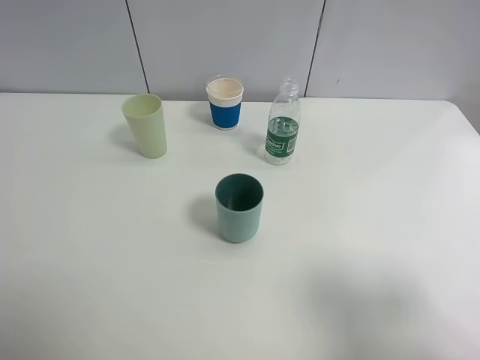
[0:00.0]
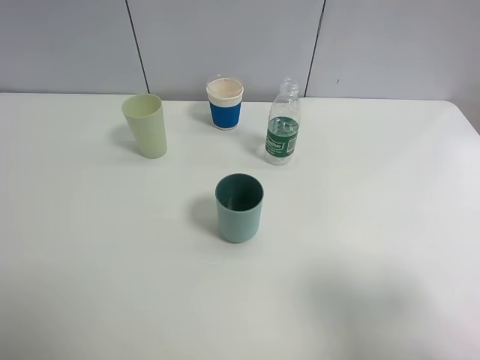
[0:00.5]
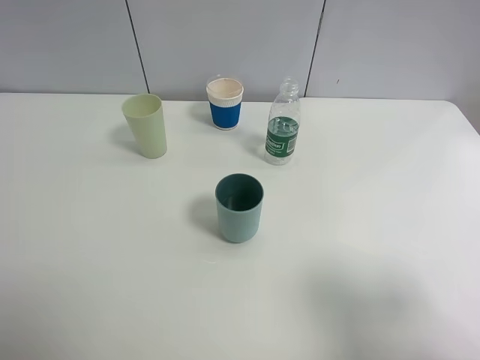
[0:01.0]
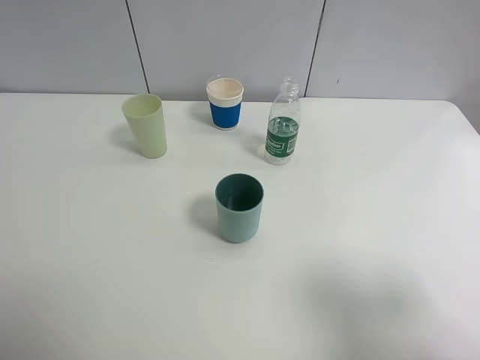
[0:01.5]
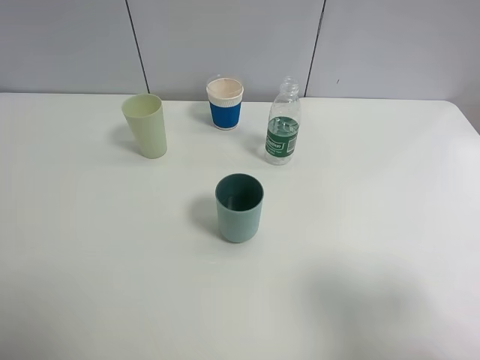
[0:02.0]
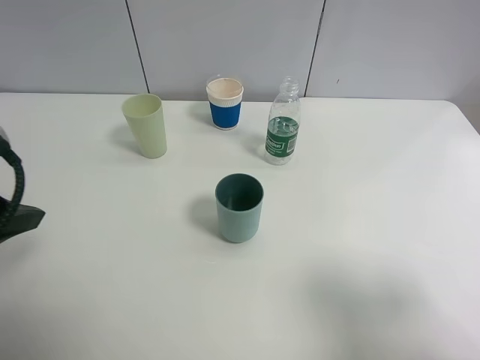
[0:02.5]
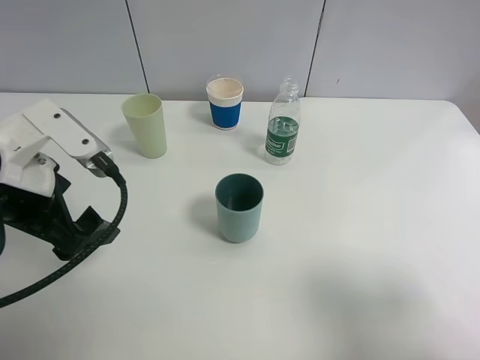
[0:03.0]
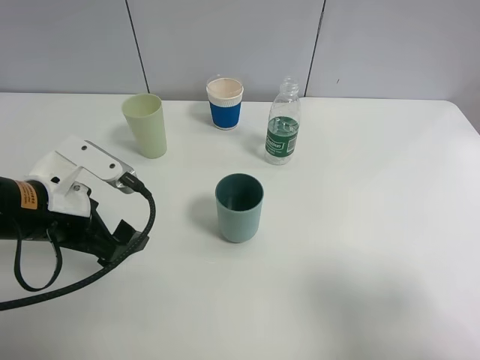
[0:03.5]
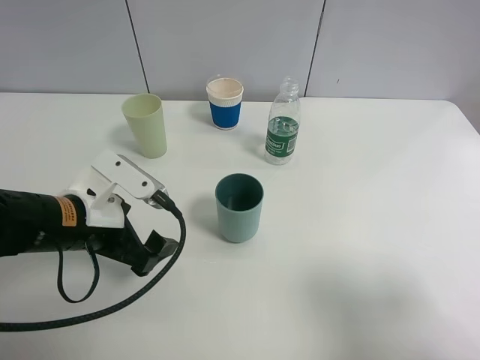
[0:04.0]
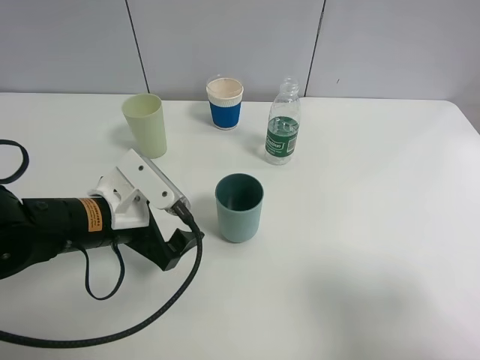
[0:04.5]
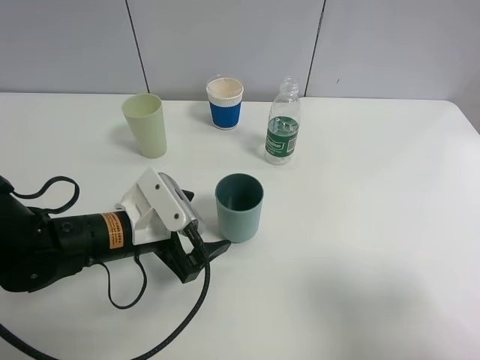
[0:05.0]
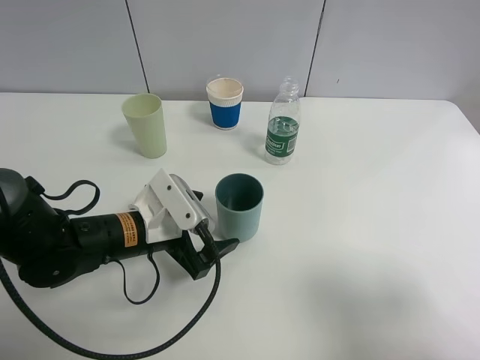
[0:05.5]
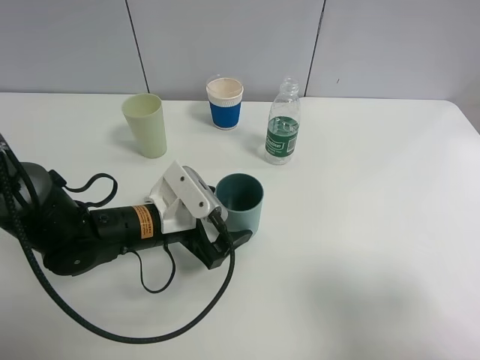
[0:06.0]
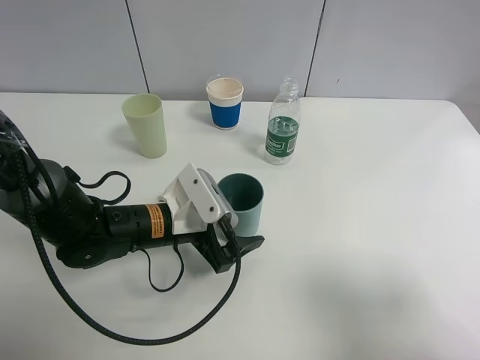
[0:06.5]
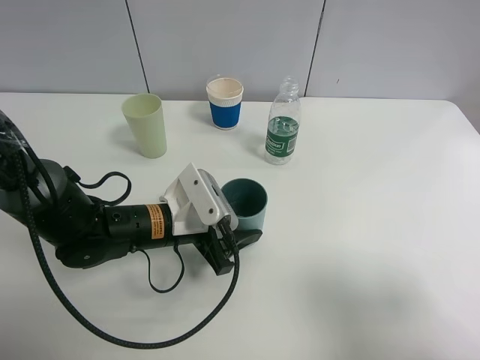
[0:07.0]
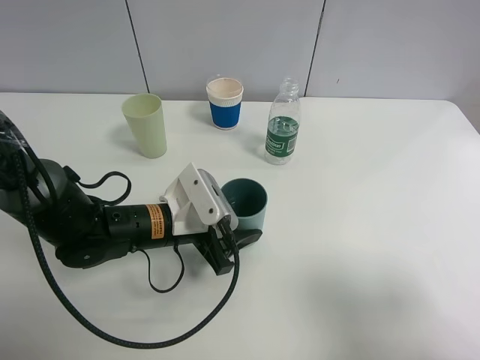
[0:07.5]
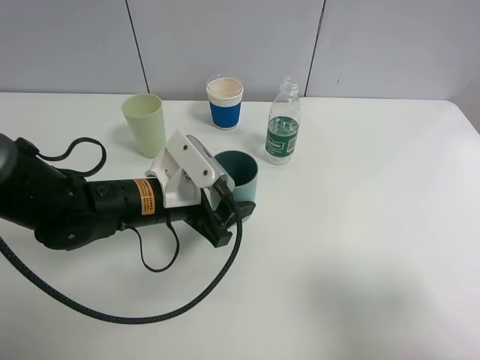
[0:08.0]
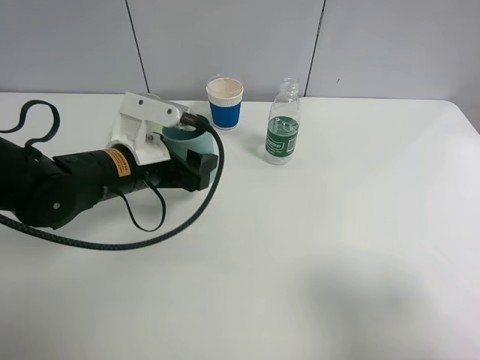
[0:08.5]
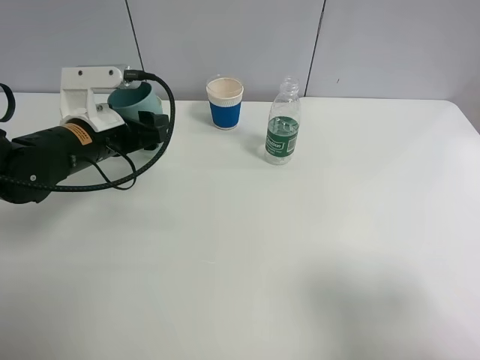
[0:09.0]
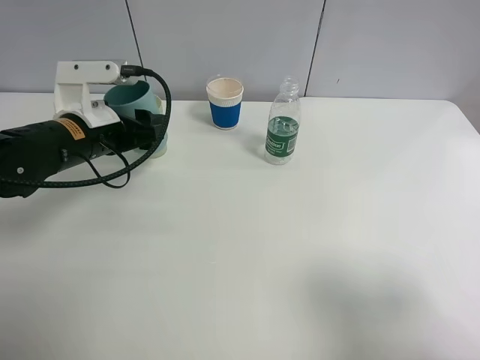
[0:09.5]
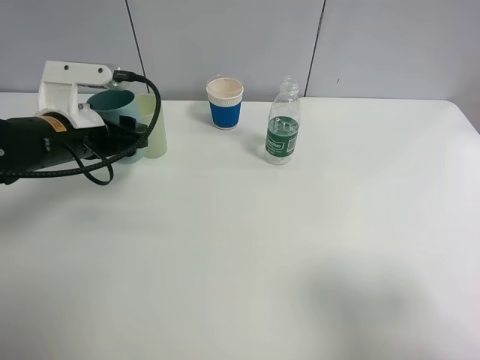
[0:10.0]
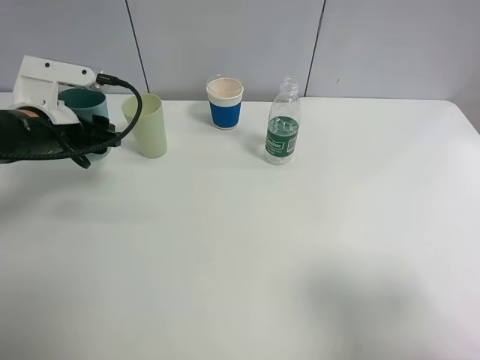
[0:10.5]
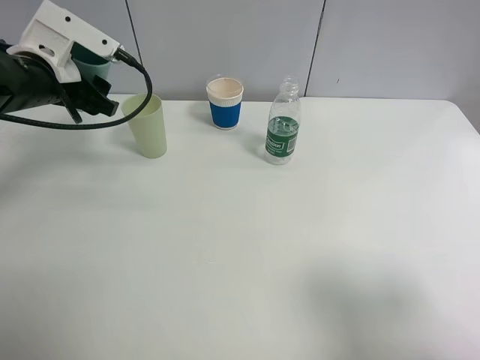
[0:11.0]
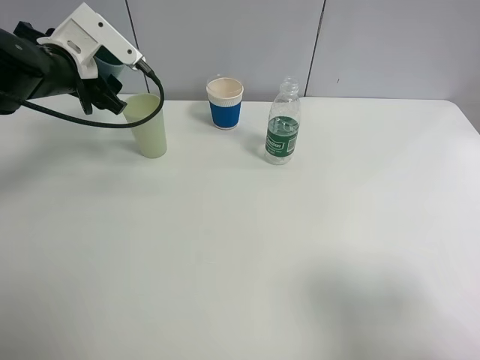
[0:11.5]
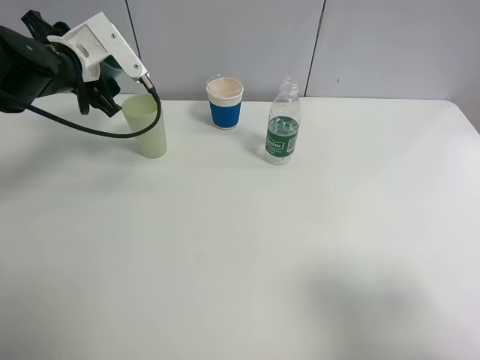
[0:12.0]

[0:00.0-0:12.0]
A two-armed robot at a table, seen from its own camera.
Task of the whole recording: use a clamp to hold the bottle of the drink, pour the beverage into a random cup, then clamp the cup containing the drink and pour the drink into another random cup.
Step, 0:00.0 to 0:08.0: Pick up the blue plastic cup bottle with left gripper.
0:02.0 to 0:04.0: The left gripper is displaced downward, to the right and forward by approximately 25 cm.
0:04.0 to 0:06.0: The left gripper moves to the right and downward, about 10 cm.
0:06.0 to 0:08.0: The left gripper closes.
0:08.0 to 0:10.0: The left gripper goes some 10 cm to the left.
0:10.0 to 0:12.0: The left gripper is displaced forward by roughly 10 cm.

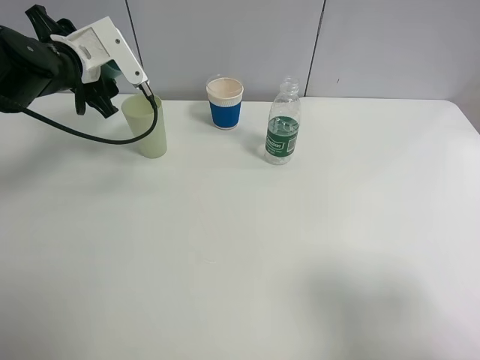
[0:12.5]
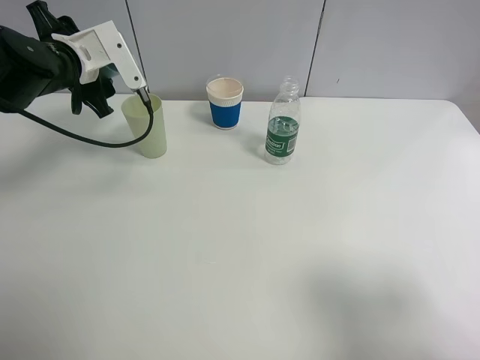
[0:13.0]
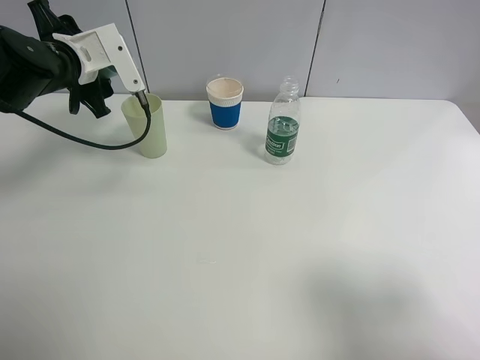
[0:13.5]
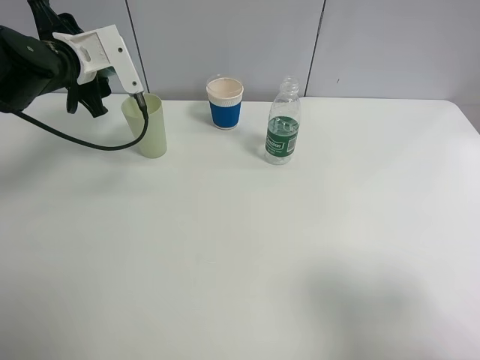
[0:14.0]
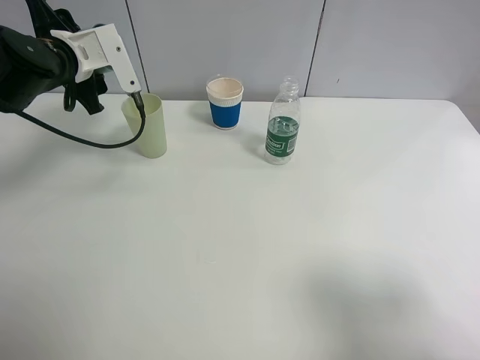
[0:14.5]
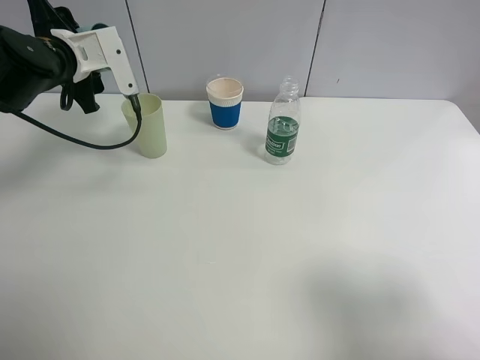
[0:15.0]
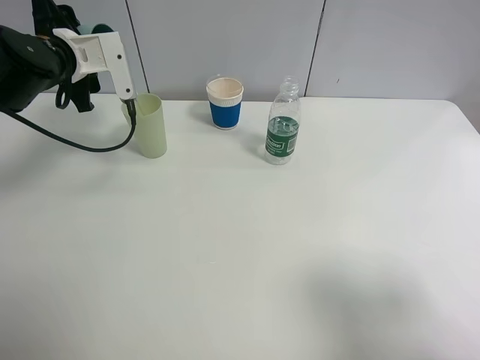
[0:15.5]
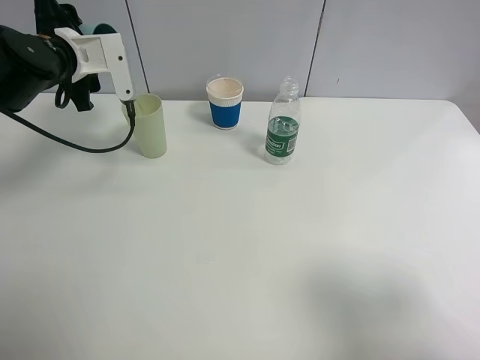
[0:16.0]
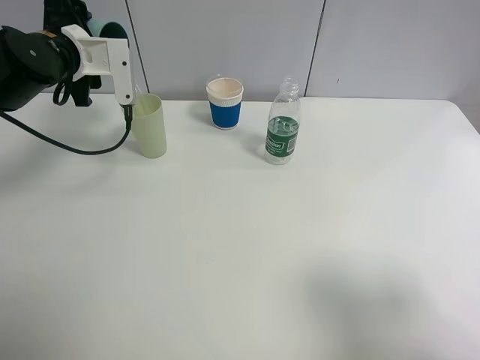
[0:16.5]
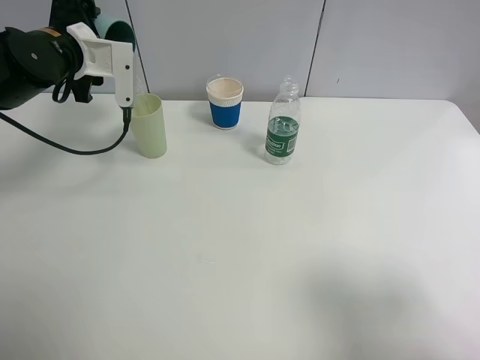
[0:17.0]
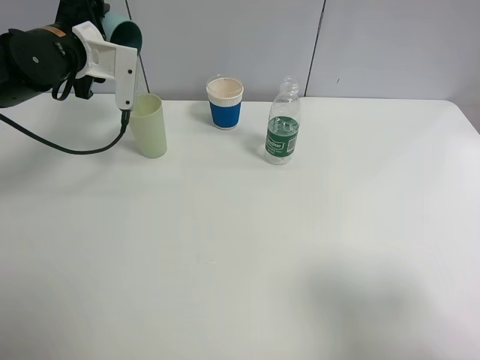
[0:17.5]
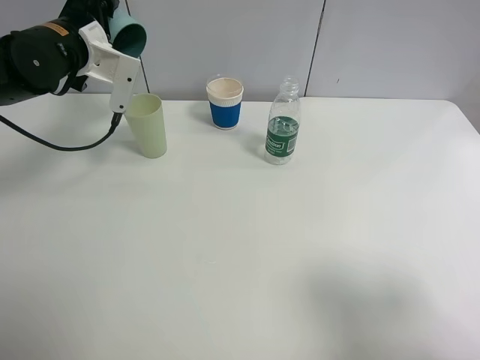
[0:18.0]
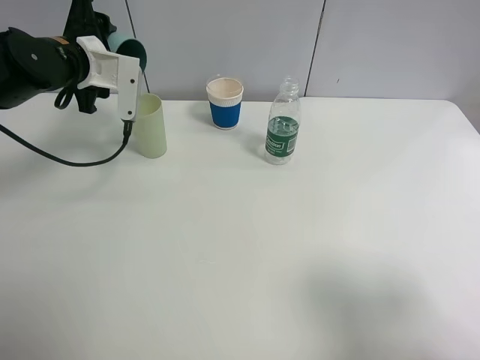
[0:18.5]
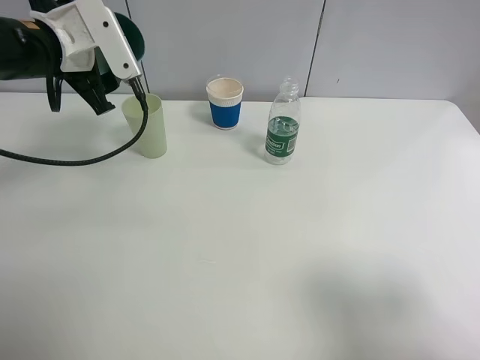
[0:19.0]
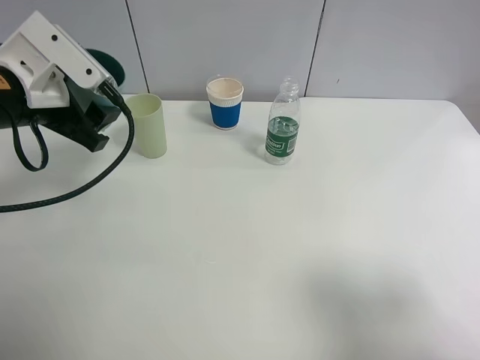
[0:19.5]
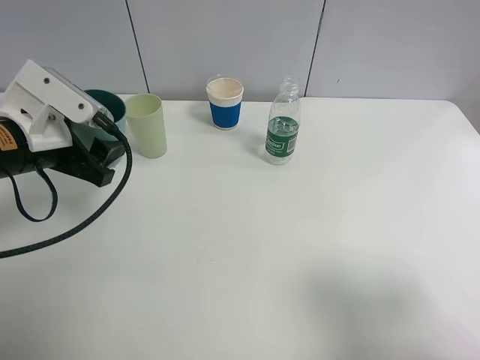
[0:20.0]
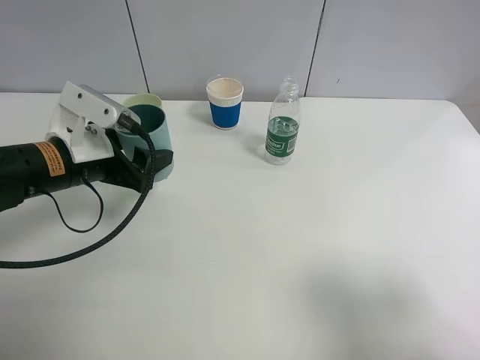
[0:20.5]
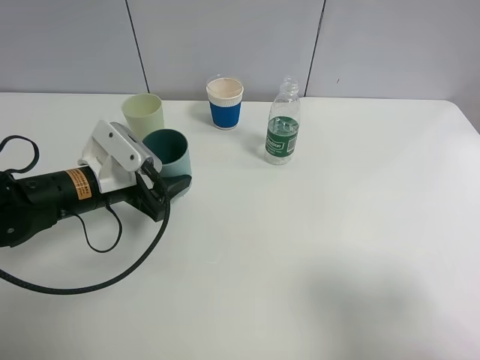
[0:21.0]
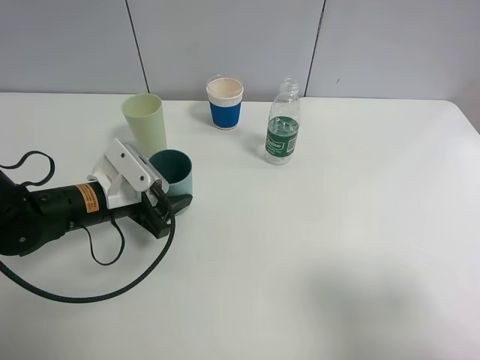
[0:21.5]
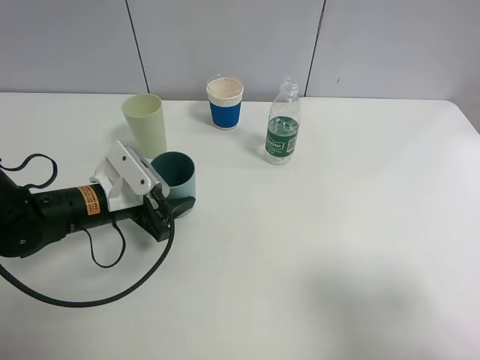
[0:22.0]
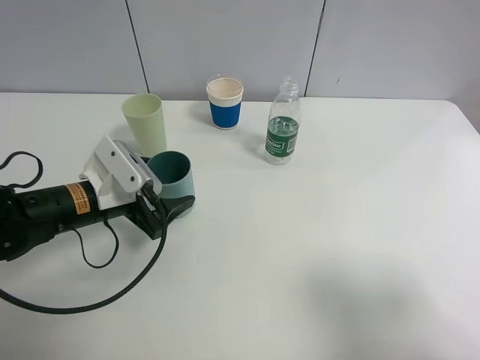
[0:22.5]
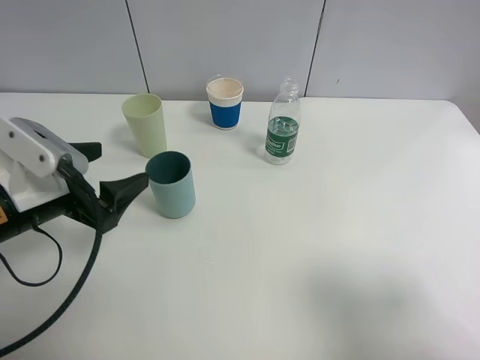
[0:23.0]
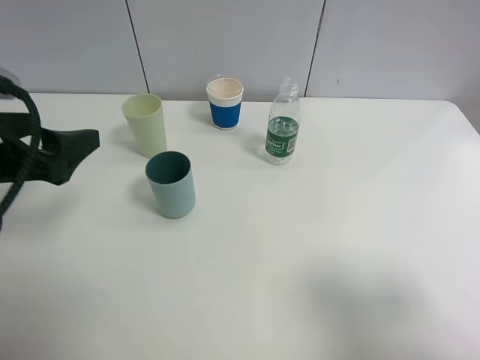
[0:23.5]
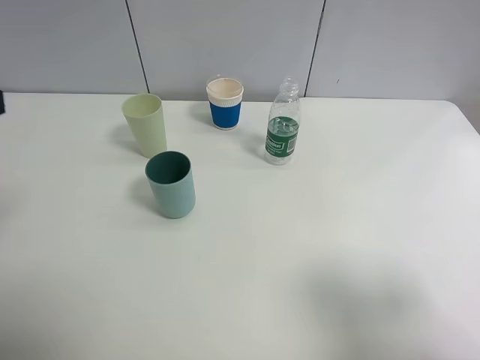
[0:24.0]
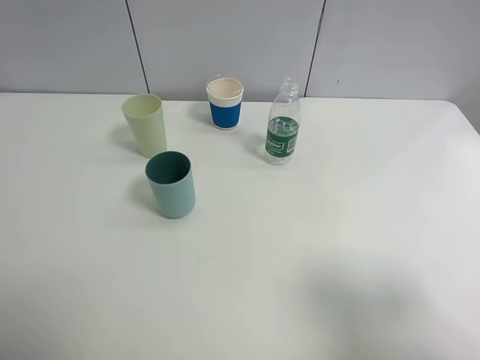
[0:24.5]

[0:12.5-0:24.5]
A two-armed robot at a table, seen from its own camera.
Task of the whole recording: use a clamp to hold the bottle of the drink, pour the beverage into a random cup, then clamp the cup containing the drink and pour the drink into another random cup.
Step, 0:12.5 to 0:18.5: Pour water into the green plastic cup with left gripper.
Step, 0:19.0 to 0:22.5: Place the blue plastic cup on the table with left gripper.
0:12.5 to 0:14.5: The grippers make only small movements.
0:18.5 to 0:20.5: The left gripper moves backward and downward, some 15 cm.
0:20.5 to 0:22.5: The left gripper moves downward, approximately 5 cm, and opens its fingers.
0:22.5 to 0:24.5: The left gripper is displaced upward, backward and to the left by roughly 30 cm, and opens.

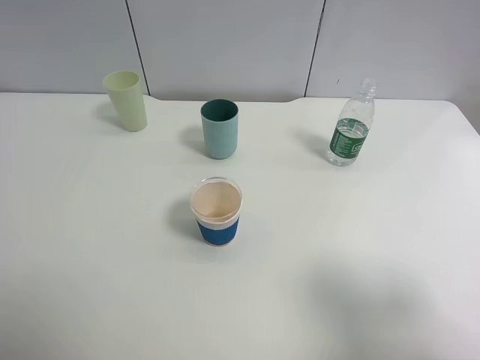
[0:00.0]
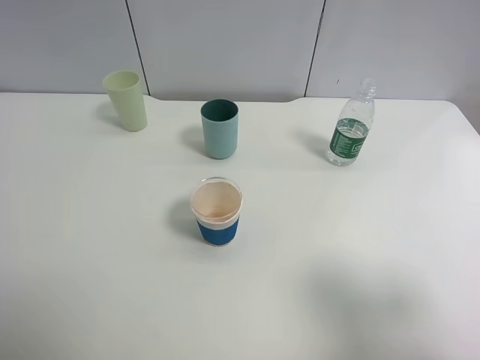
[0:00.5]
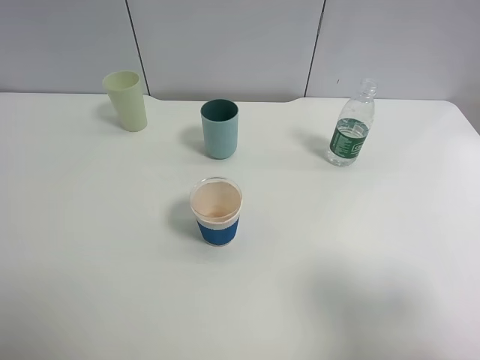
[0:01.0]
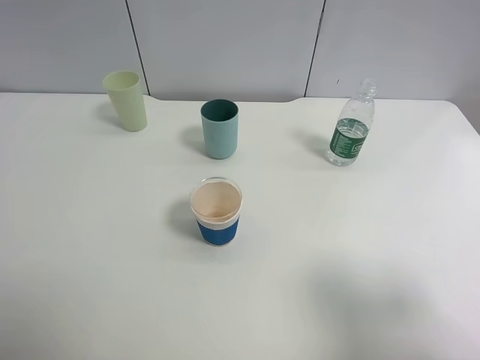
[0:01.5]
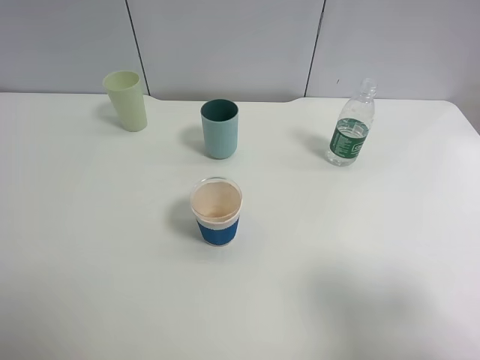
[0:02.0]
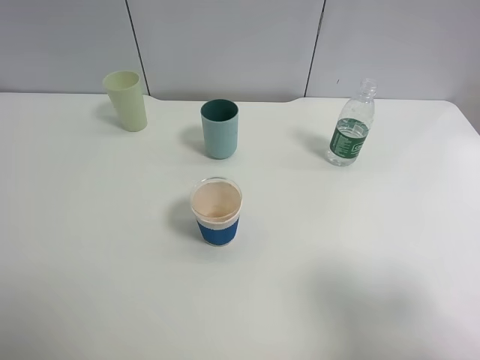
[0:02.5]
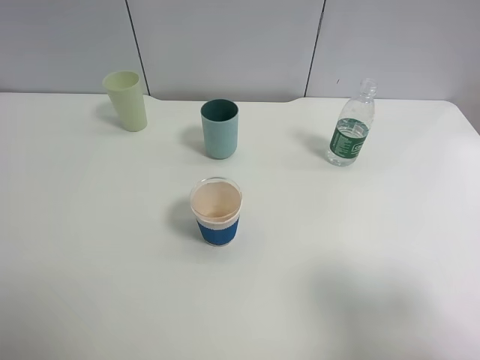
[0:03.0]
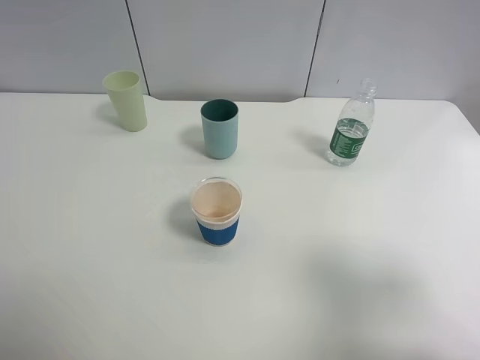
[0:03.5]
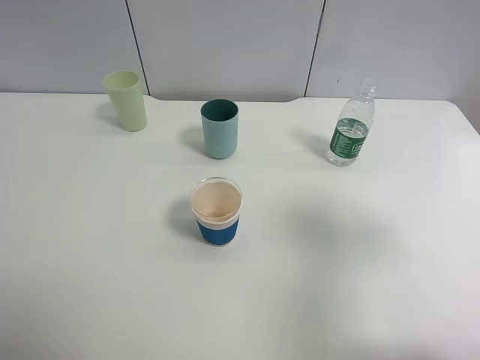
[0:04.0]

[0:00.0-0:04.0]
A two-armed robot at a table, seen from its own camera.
Task of the whole recording: use a clamp to hold the bottle of the drink, pour the beverage into a random cup, then clamp the cup containing the drink and pour the drink into another random cup.
0:00.0 to 0:02.0: Both grippers stay about where they are.
0:02.0 to 0:04.0: The right gripper travels forward by roughly 10 cm.
